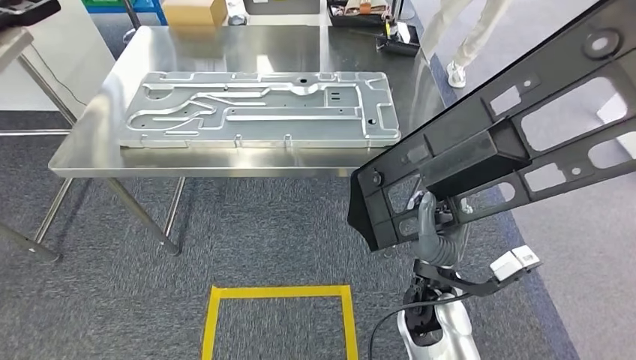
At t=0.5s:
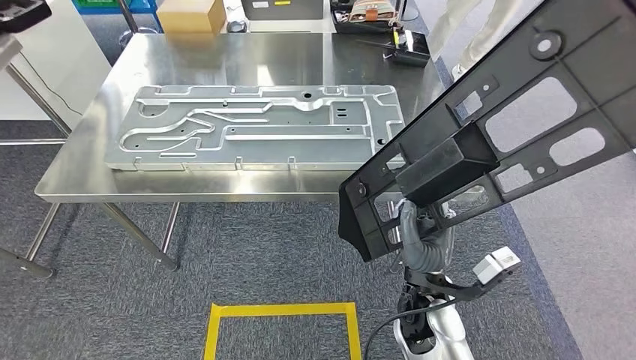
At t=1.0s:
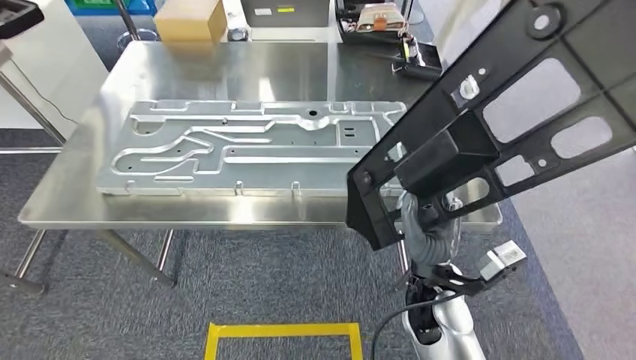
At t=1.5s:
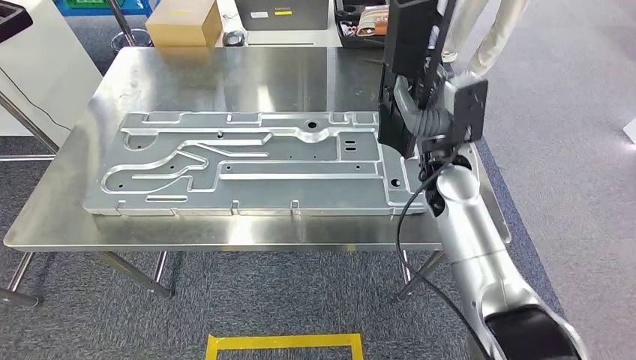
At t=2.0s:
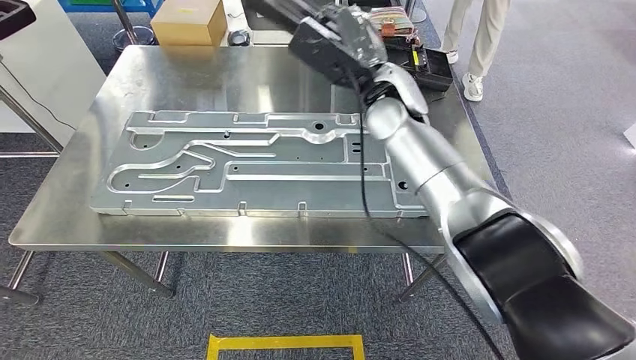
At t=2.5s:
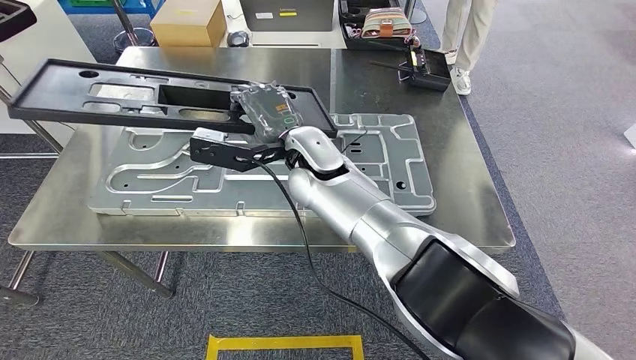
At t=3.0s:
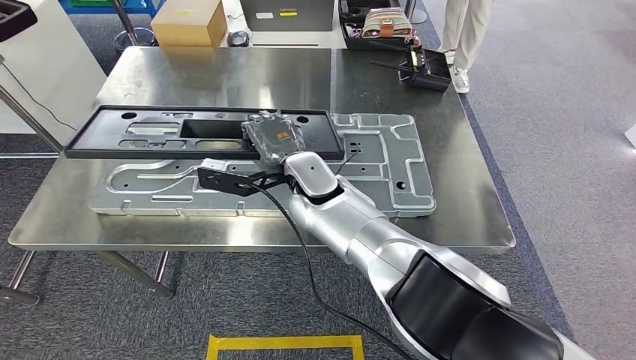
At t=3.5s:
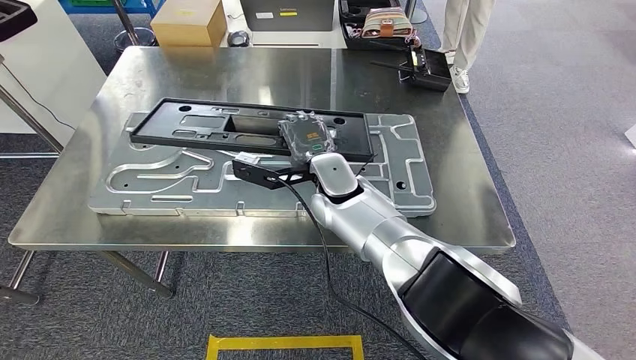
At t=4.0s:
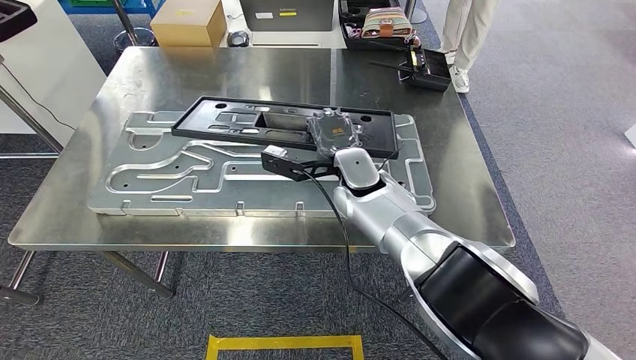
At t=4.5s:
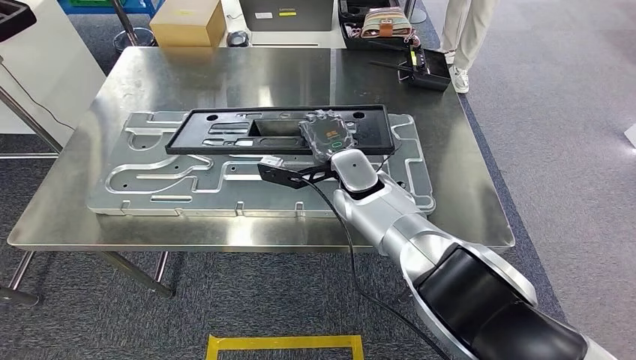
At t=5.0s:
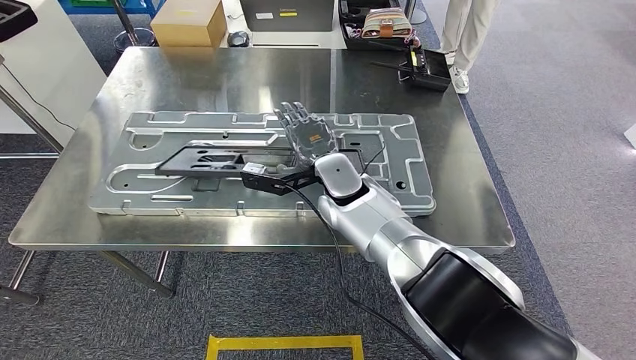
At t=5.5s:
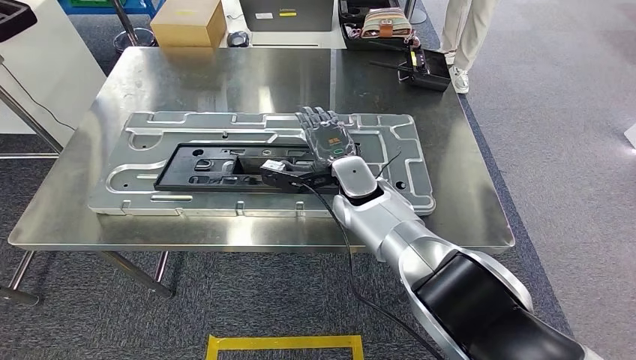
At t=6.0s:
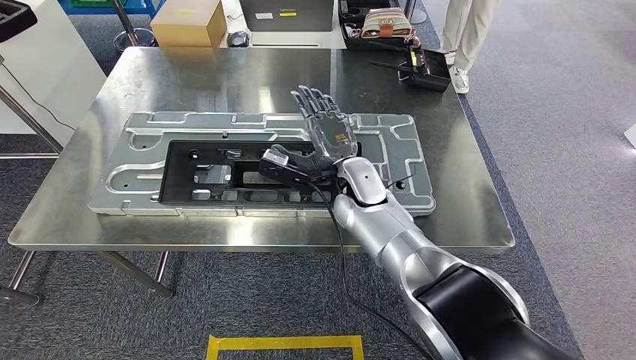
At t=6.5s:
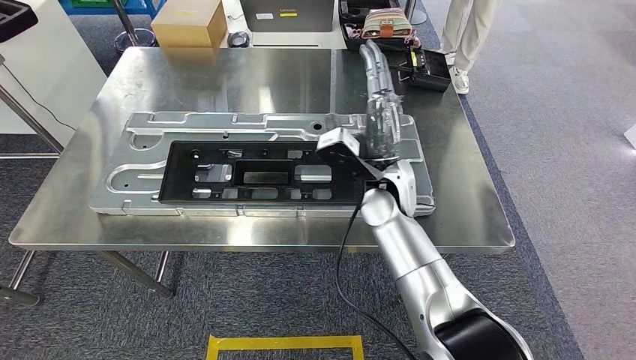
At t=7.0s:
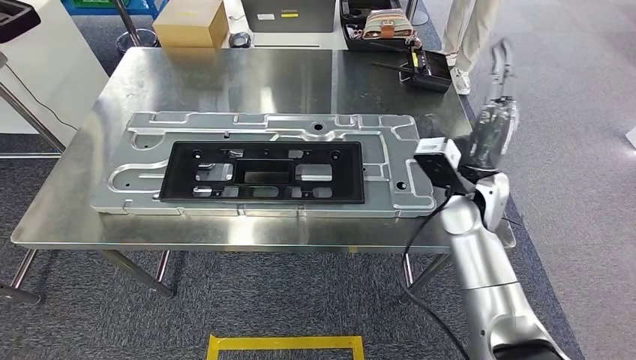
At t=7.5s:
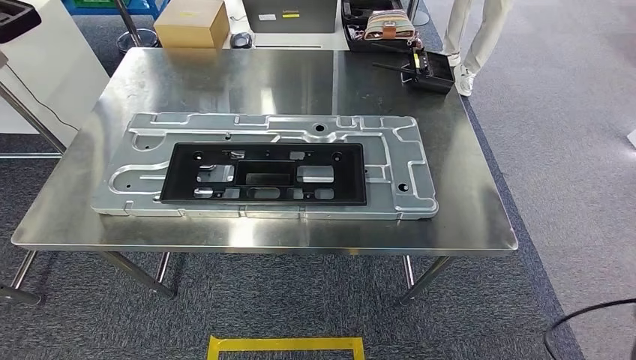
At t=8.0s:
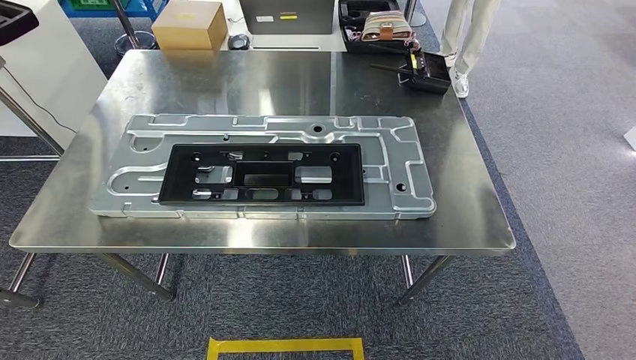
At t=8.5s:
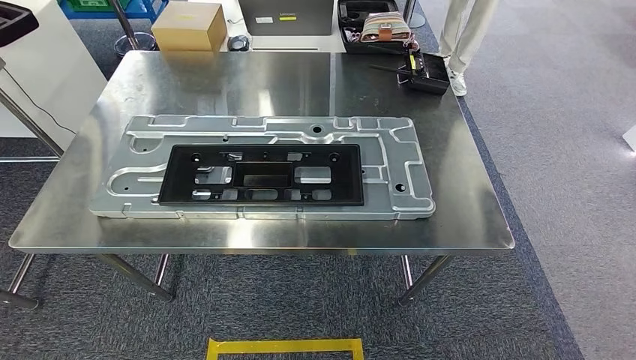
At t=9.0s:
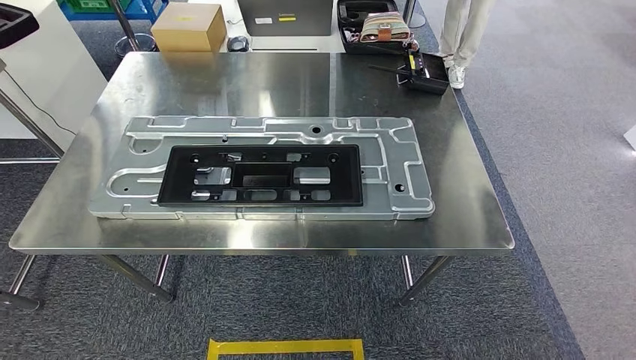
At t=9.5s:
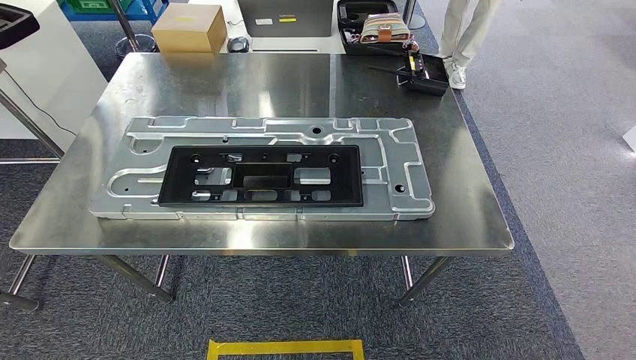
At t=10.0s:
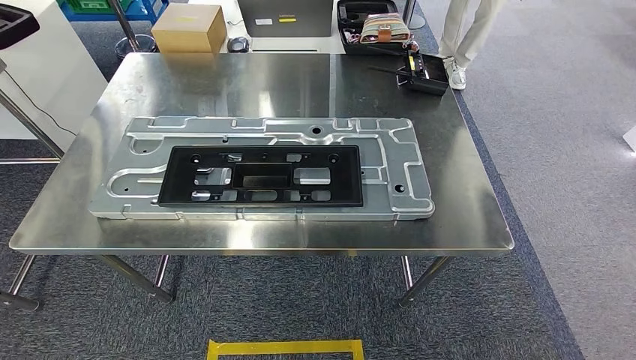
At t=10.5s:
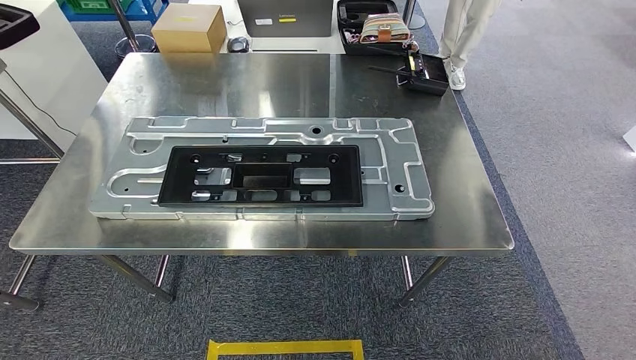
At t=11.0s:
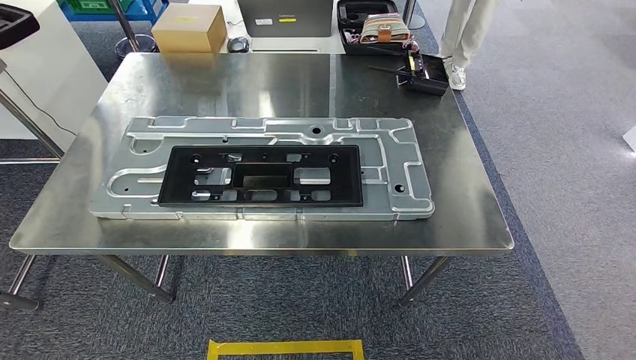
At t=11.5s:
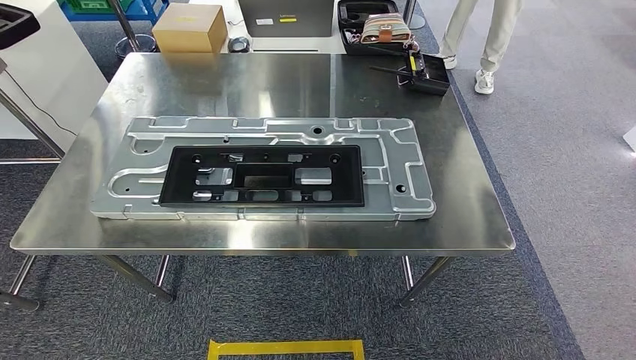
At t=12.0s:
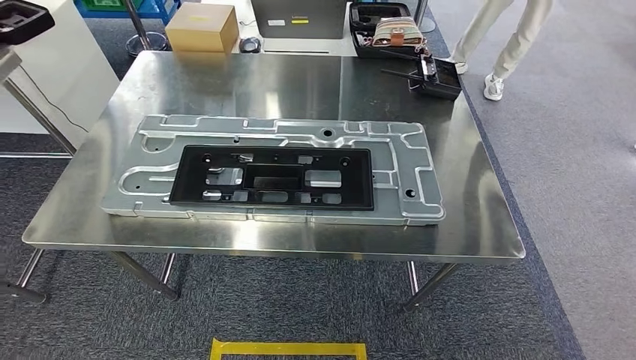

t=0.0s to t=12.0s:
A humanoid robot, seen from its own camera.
Step, t=2.0s to t=7.5s: Insert the large material into the corresponding slot on the workbench.
t=6.0s to t=8.0s: The right hand is displaced to the right and backward by roughly 60 cm.
t=8.0s to t=10.0s: The right hand heads to the left and downward, covering roughly 40 cm.

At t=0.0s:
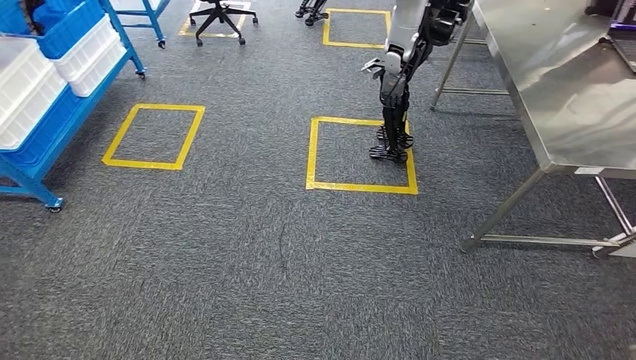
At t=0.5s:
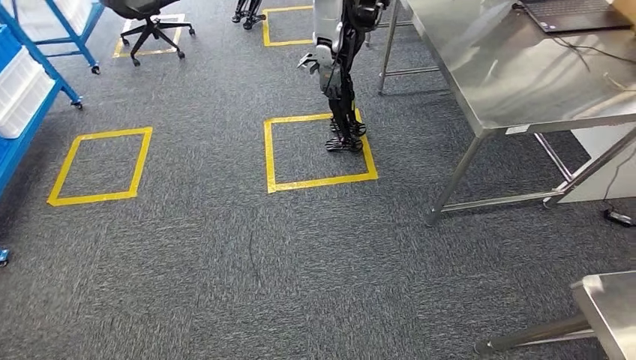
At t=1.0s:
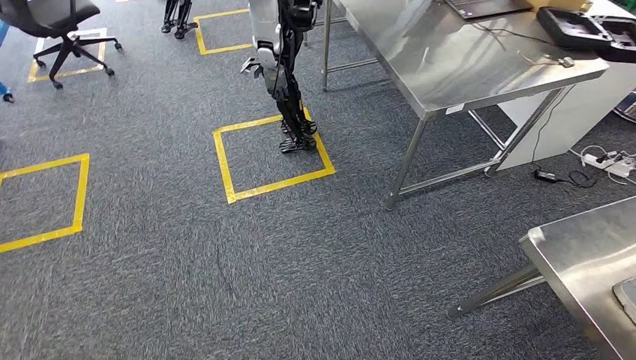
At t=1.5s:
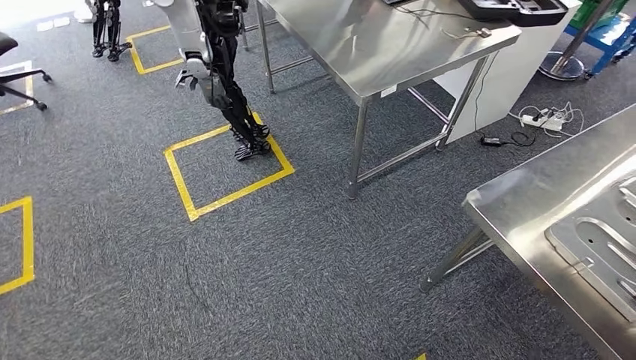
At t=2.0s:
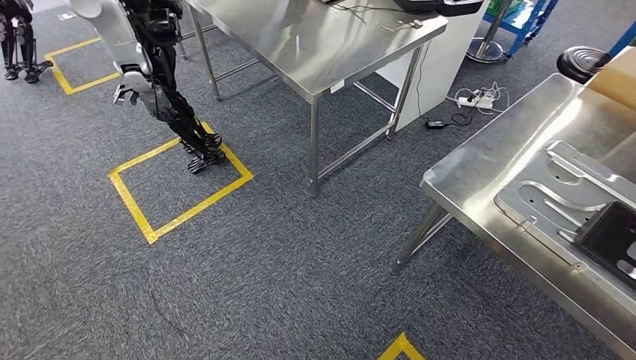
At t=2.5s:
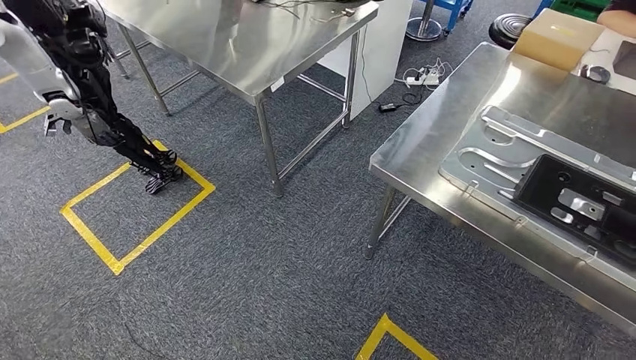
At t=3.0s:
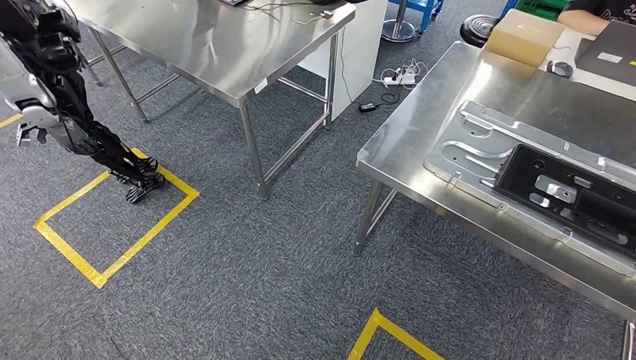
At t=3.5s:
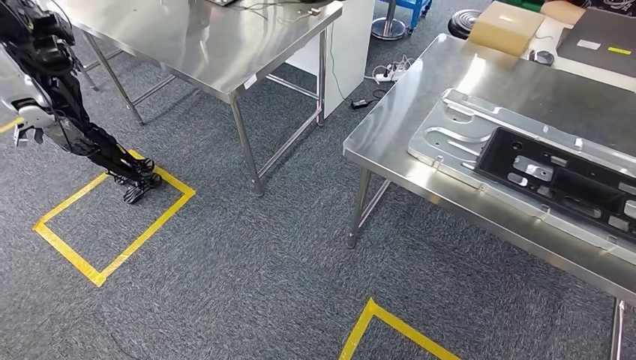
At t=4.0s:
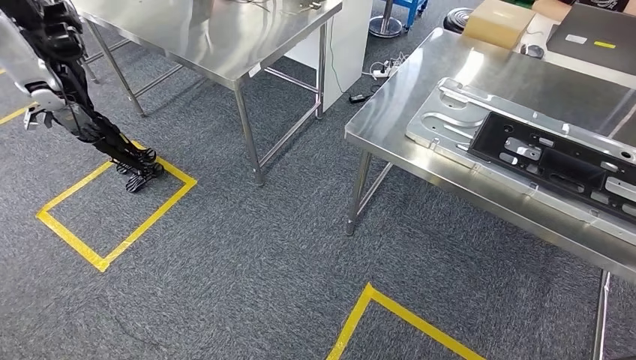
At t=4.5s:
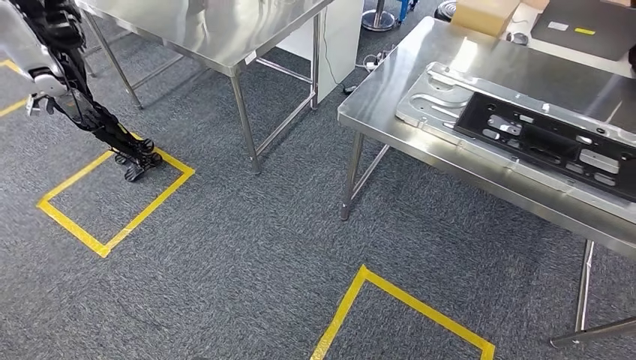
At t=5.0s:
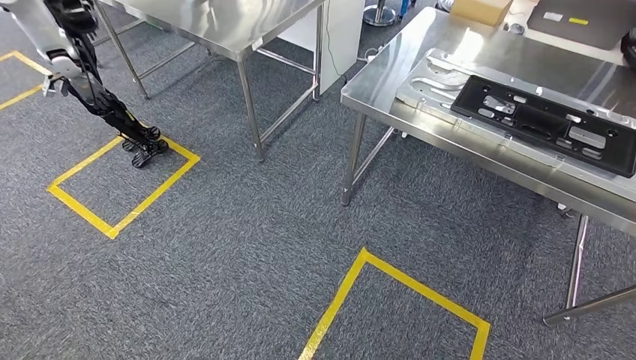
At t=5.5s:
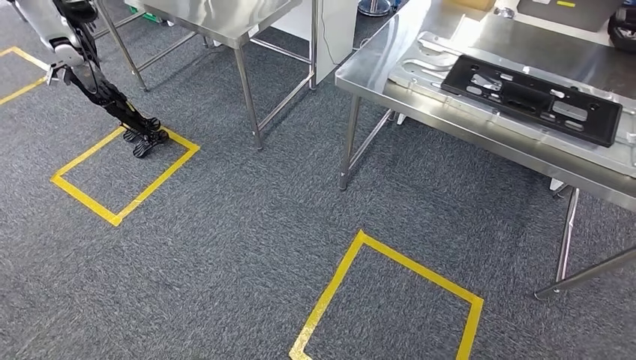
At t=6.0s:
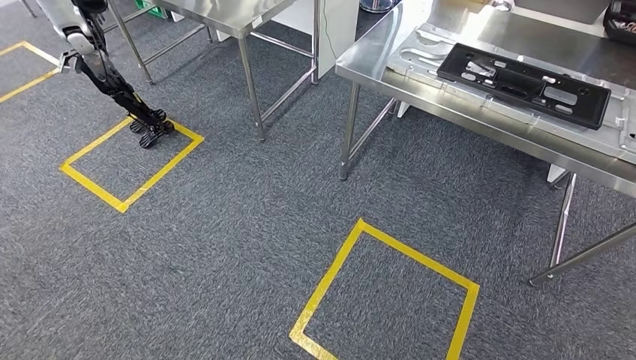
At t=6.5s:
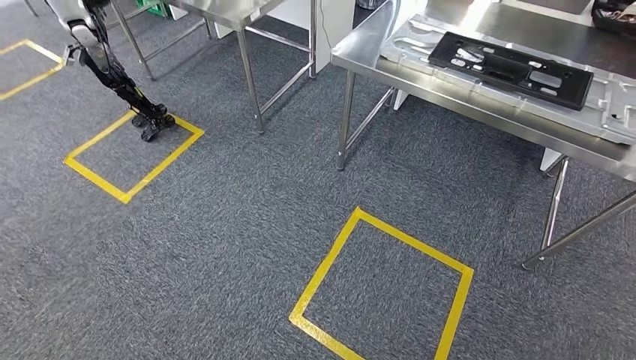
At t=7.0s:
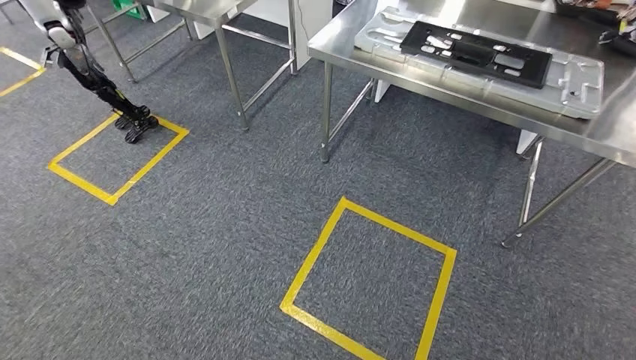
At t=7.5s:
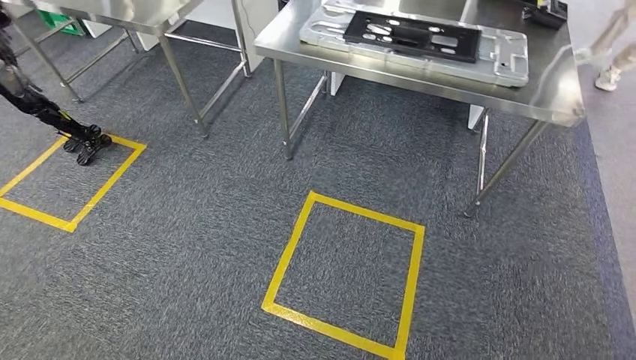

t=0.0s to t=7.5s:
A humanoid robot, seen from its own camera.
Step, t=0.0s to t=7.5s: Move to the initial position of the shelf.
